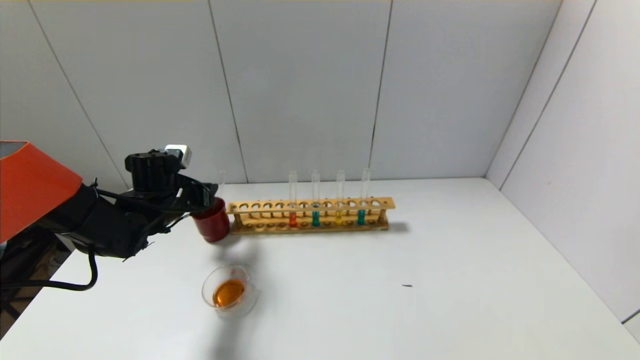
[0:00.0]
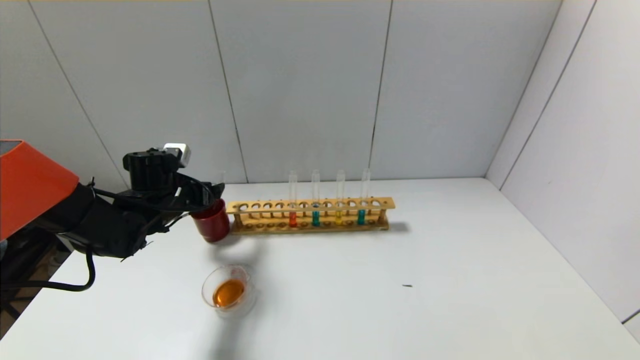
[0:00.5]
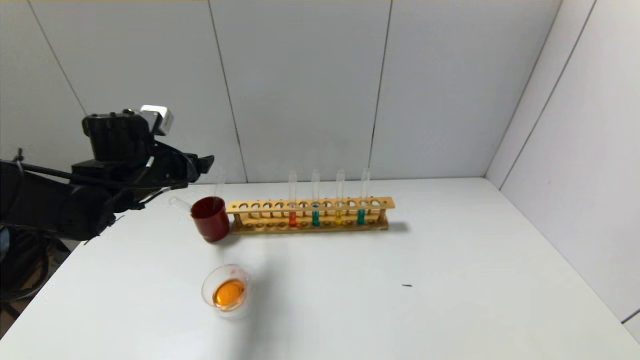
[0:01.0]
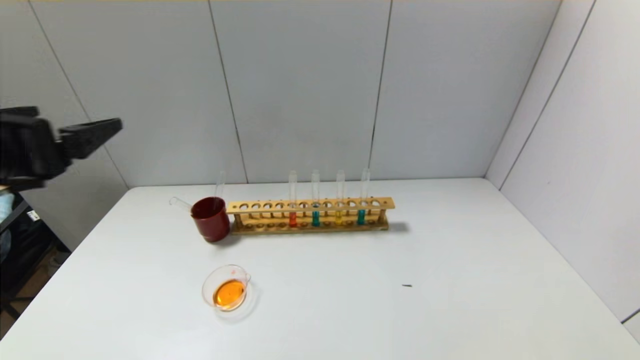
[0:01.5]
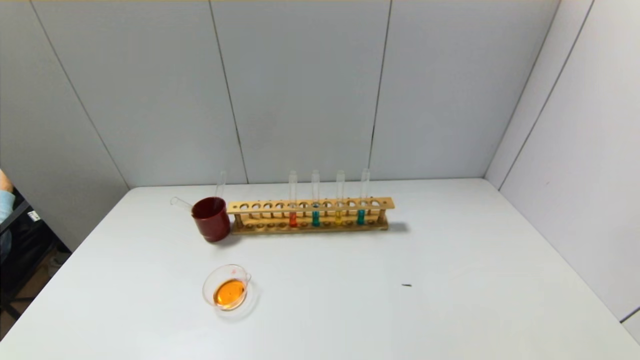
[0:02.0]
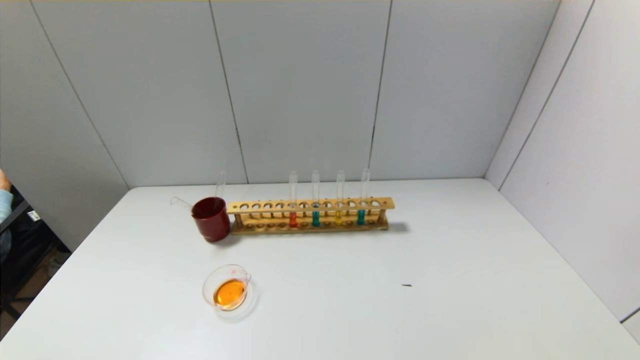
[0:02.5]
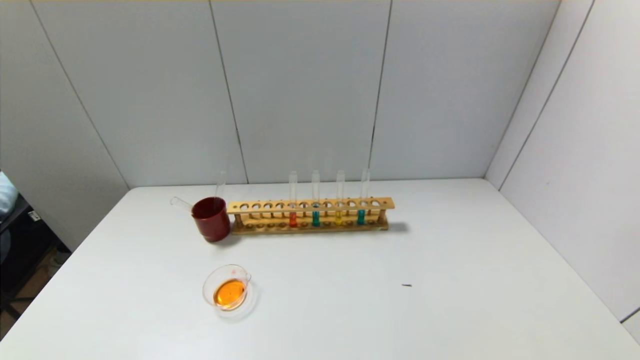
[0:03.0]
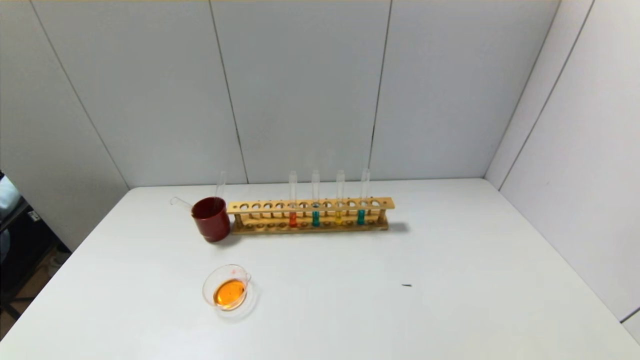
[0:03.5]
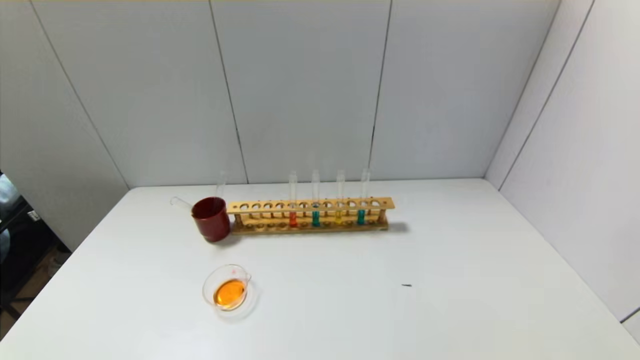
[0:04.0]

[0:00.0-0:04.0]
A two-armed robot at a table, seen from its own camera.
0:00.0 to 0:02.0: The left gripper moves backward, some 40 cm, and opens its fingers.
